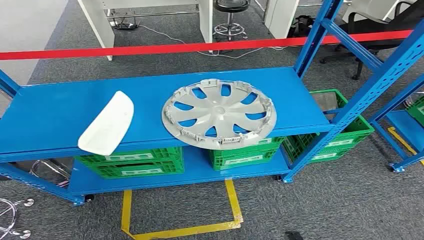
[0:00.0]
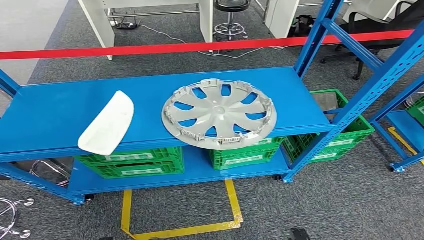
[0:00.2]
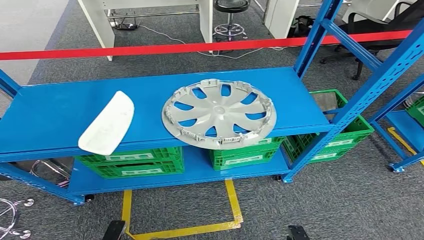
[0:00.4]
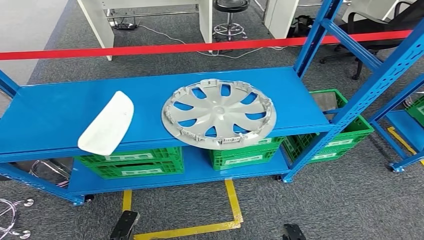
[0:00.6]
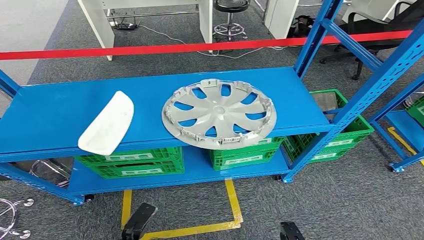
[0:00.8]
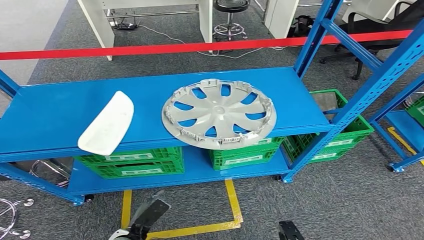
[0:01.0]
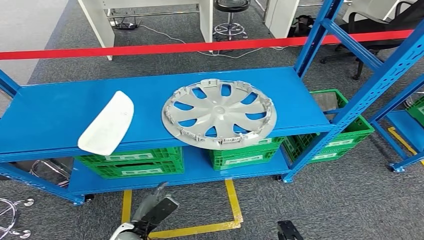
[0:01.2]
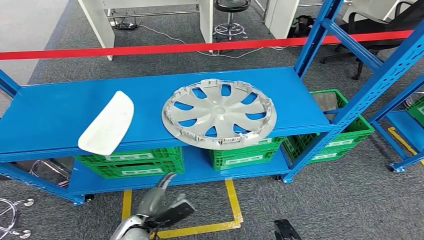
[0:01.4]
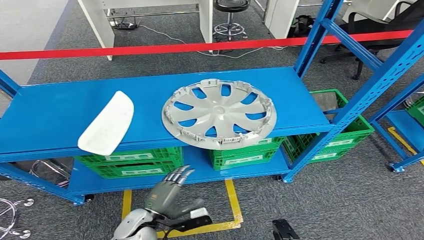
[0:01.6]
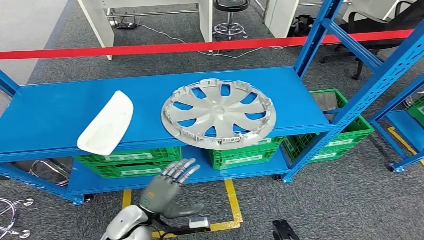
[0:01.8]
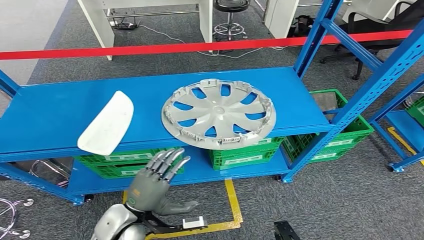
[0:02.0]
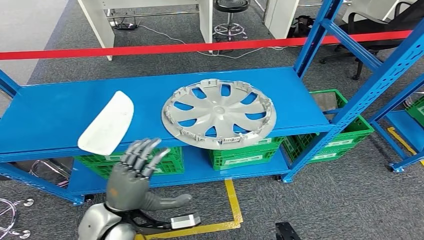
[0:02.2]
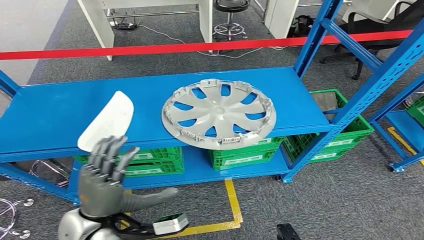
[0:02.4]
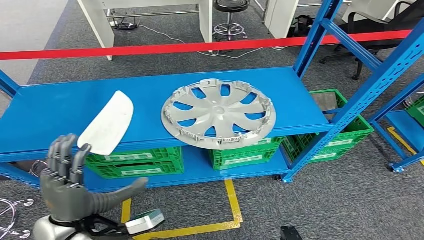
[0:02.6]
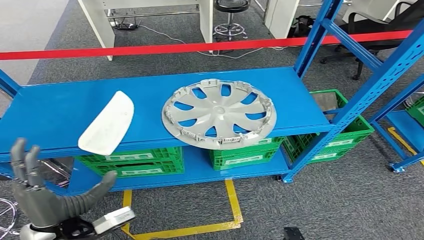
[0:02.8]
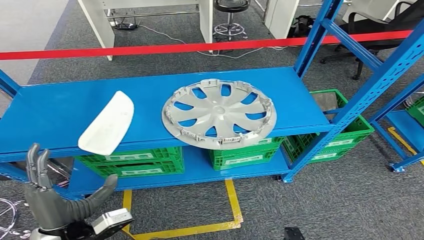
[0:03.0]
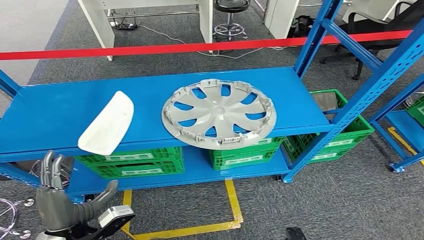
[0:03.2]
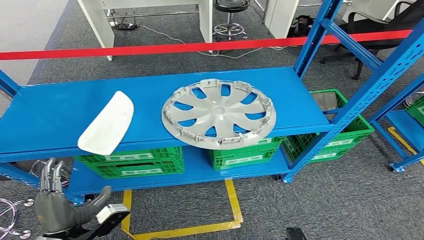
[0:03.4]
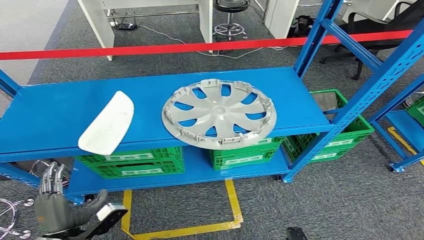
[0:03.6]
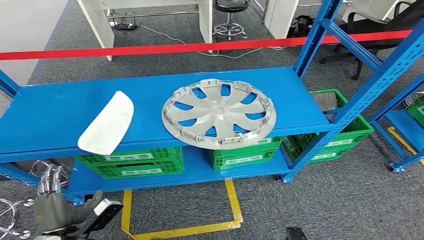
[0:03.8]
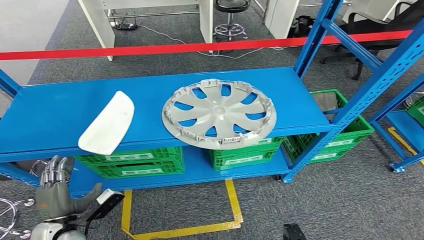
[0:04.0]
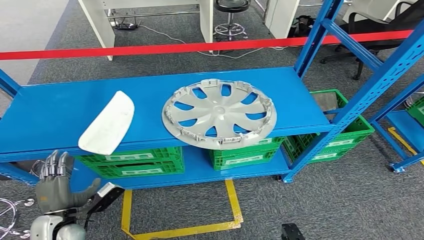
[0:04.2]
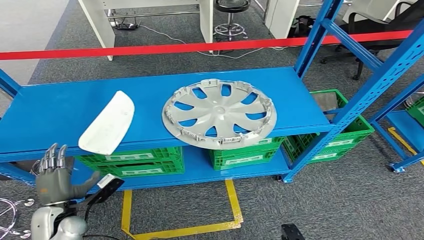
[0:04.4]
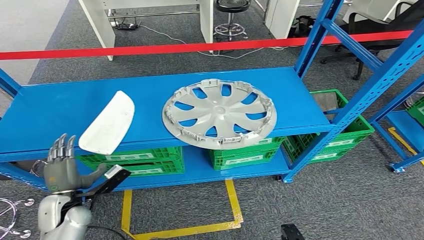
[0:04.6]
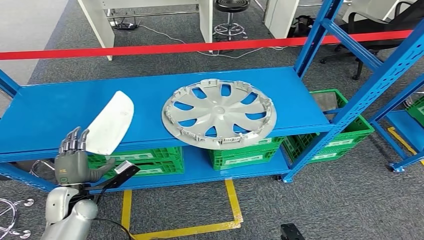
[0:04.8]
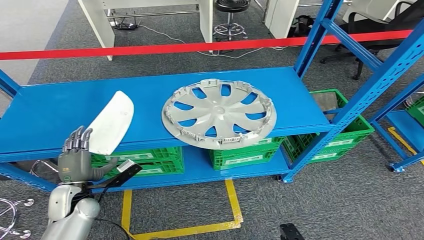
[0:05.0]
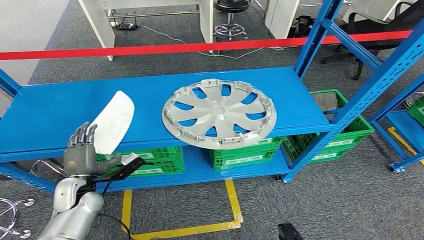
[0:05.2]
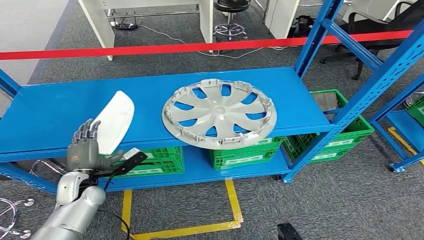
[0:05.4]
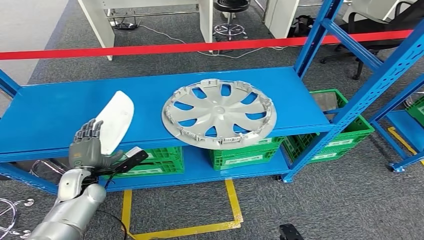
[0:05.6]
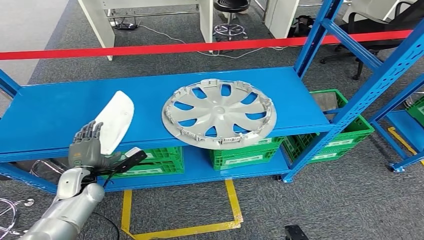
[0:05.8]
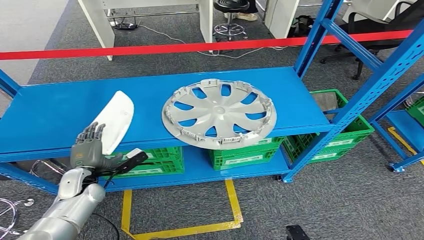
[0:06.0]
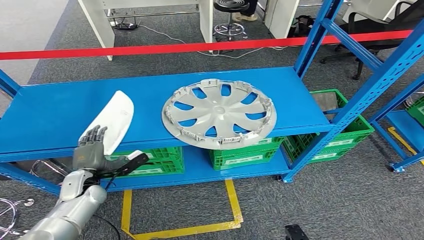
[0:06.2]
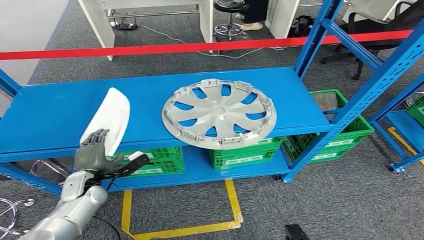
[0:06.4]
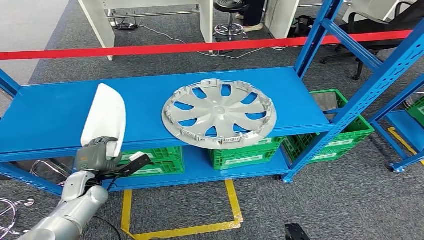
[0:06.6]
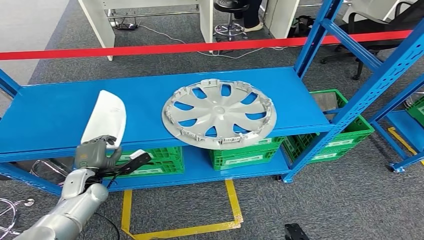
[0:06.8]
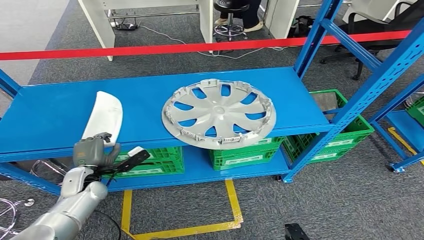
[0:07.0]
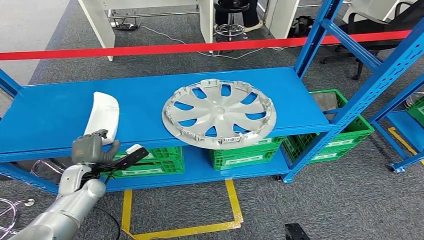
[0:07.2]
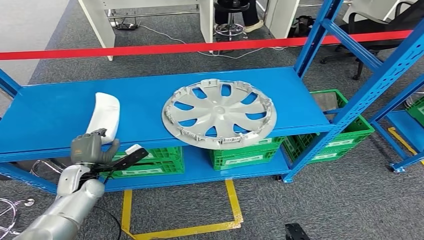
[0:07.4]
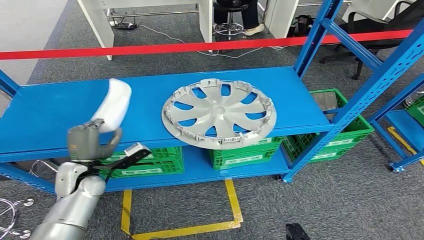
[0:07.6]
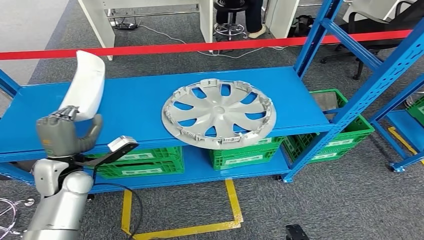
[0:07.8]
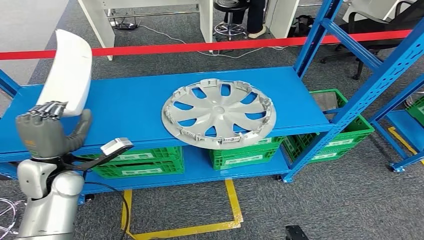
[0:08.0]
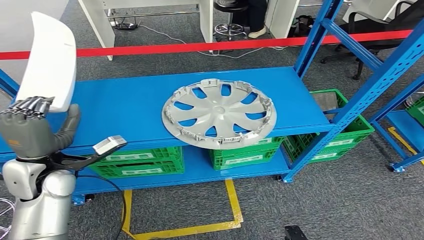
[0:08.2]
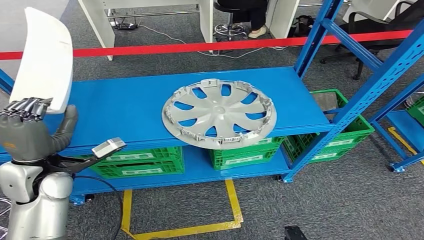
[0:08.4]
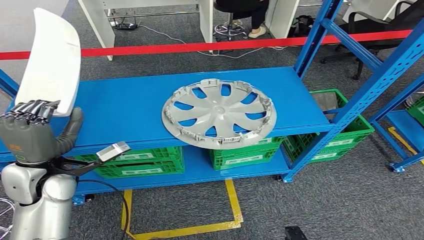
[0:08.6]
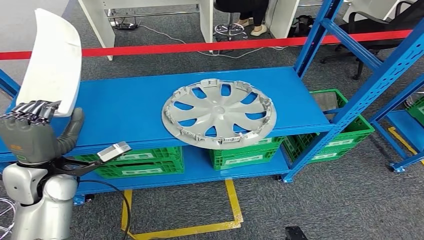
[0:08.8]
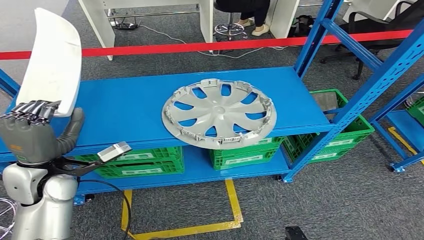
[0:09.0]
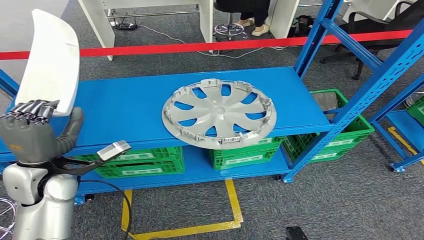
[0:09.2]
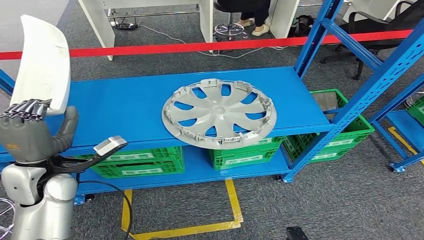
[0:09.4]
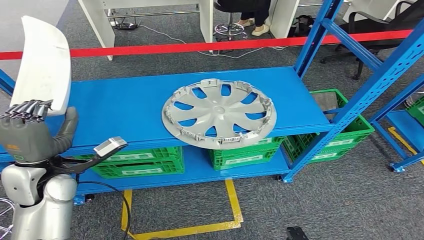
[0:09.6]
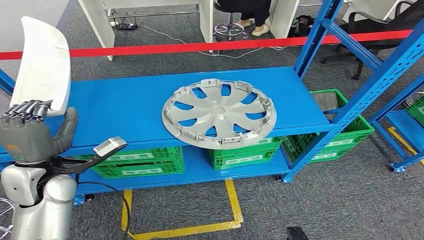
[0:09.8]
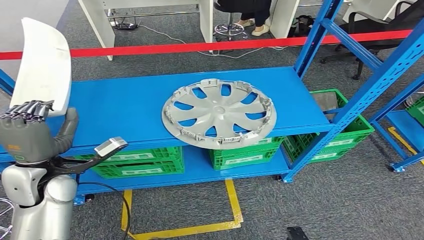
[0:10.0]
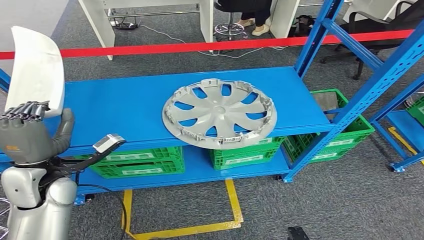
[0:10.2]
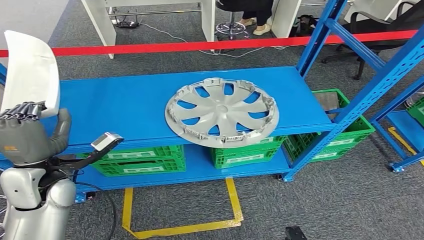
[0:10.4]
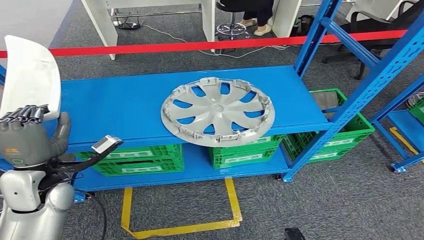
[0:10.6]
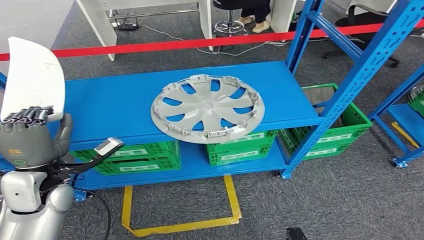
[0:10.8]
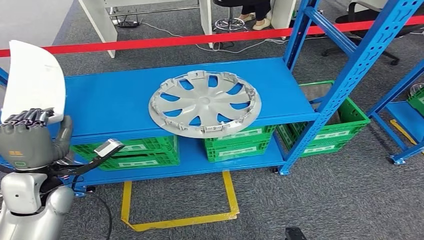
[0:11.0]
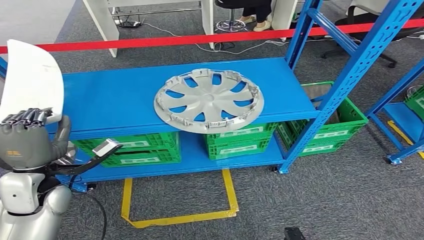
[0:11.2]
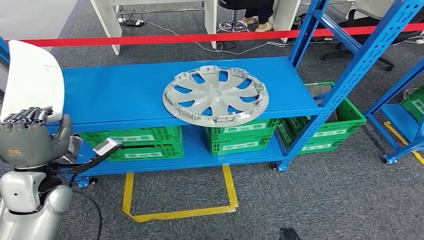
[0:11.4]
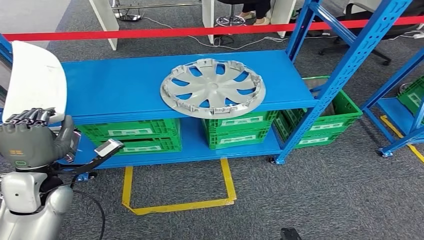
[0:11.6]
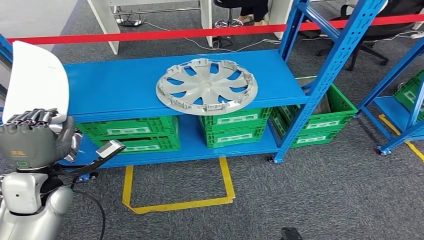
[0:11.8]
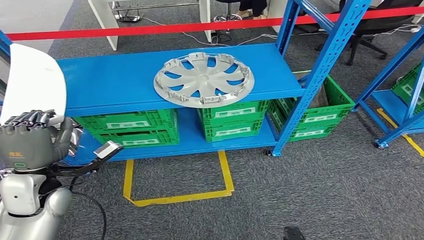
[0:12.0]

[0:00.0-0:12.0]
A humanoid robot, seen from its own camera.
Step, 0:00.0 to 0:11.6: Pick up the small component from the shelf.
0:01.6 to 0:03.0: The left hand travels upward and to the left by about 20 cm.
0:03.0 to 0:04.4: The left hand moves downward, to the left and forward, about 15 cm.
0:04.4 to 0:06.0: The left hand is displaced forward by about 10 cm.
0:07.6 to 0:09.0: The left hand heads upward, covering about 10 cm.

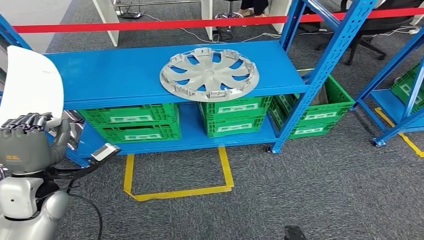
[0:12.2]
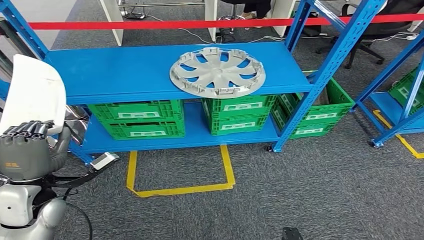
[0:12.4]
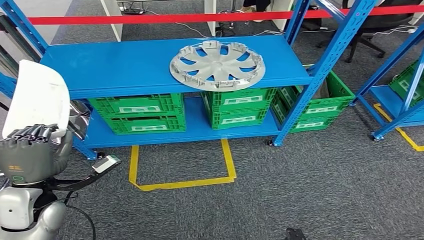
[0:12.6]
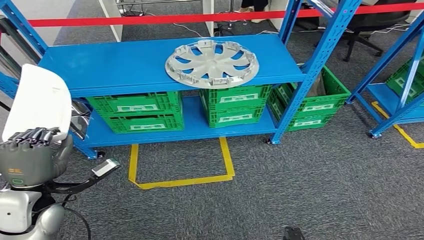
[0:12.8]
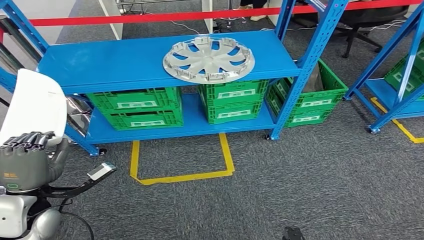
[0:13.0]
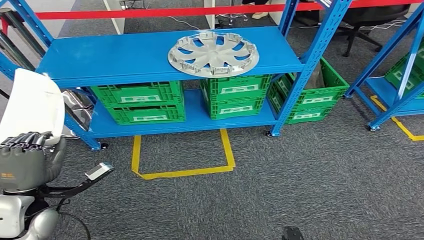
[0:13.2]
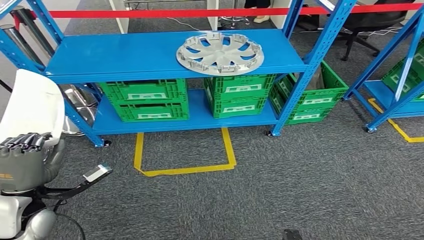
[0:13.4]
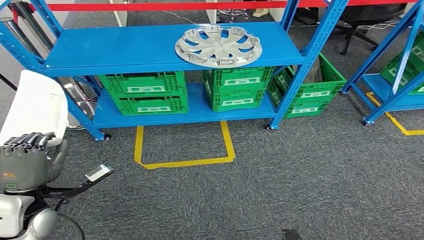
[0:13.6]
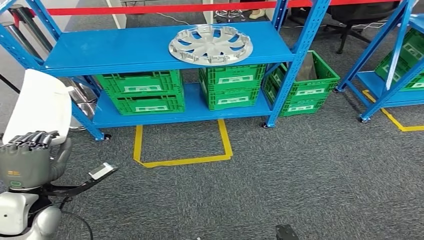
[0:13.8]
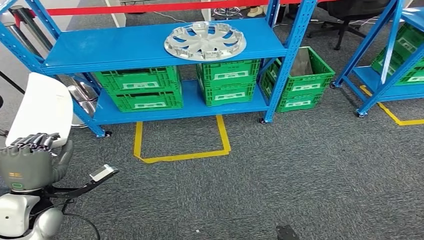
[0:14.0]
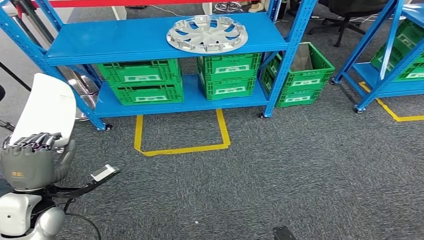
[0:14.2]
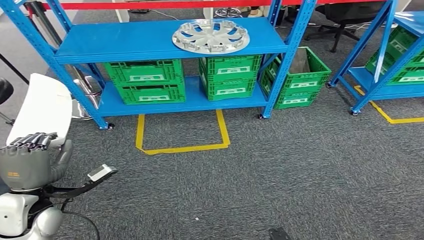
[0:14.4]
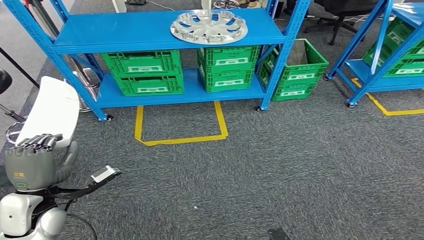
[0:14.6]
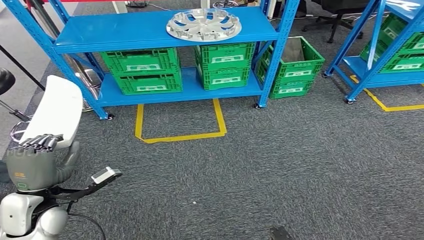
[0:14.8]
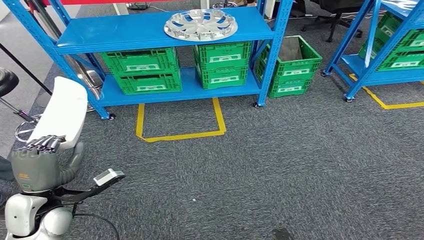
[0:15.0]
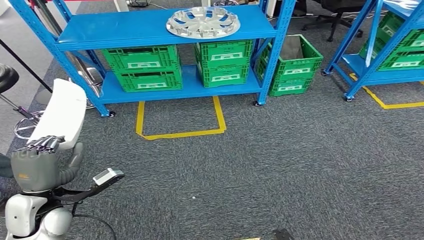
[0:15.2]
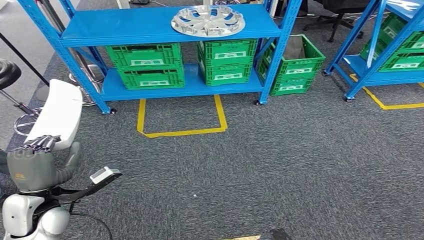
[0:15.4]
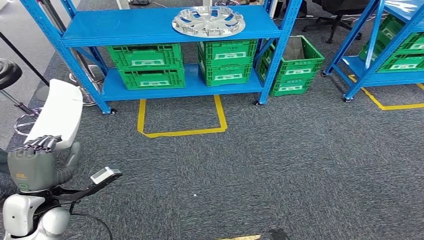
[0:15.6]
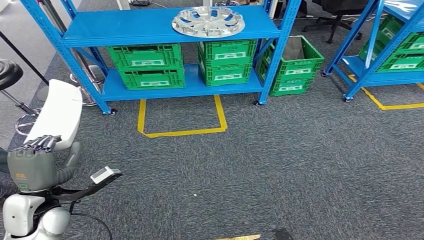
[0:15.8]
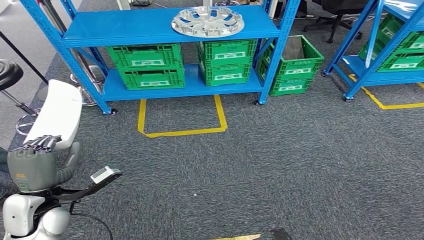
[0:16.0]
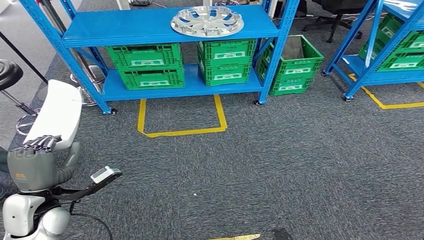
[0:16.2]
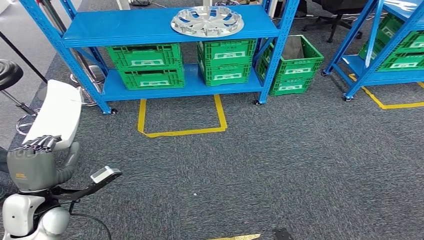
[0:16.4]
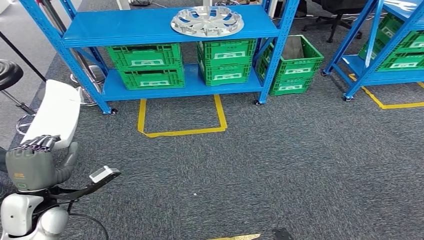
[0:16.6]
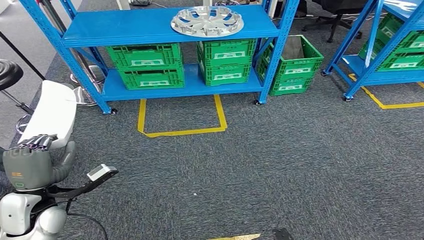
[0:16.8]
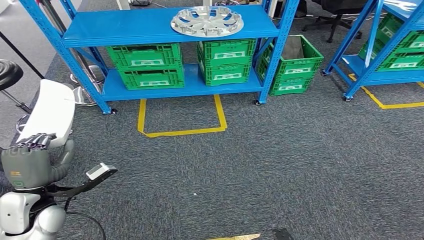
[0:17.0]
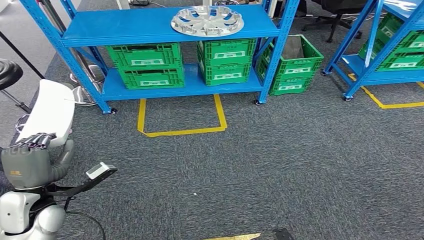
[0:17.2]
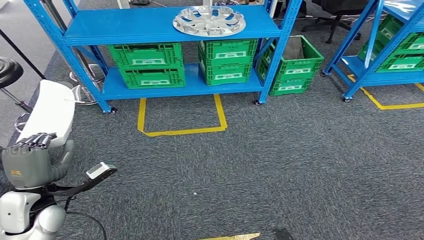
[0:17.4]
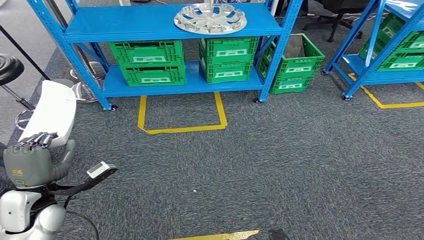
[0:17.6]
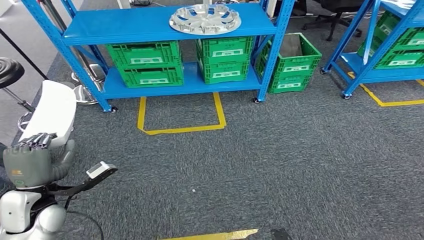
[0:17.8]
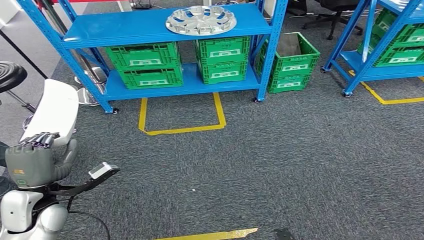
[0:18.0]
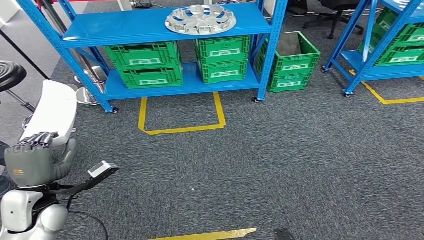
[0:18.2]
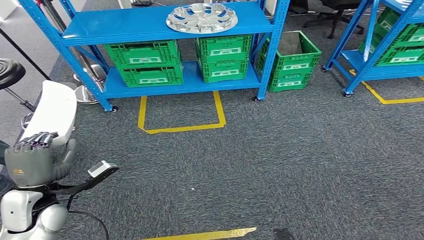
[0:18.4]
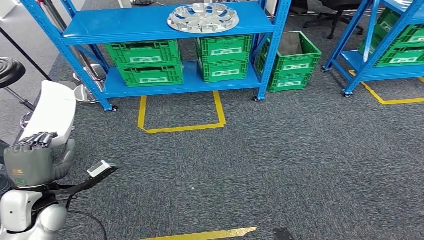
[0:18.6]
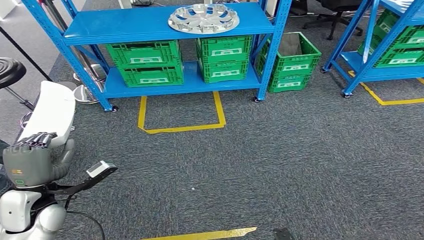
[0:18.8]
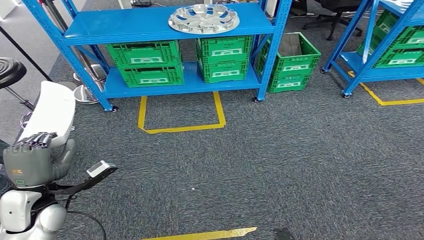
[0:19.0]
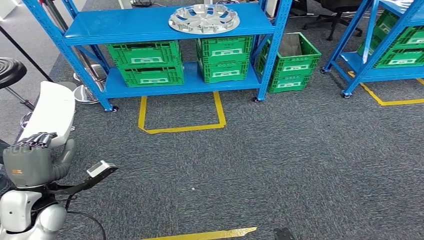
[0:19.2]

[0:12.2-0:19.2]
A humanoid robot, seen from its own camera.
0:16.4 to 0:19.2: Both hands stay about where they are.
